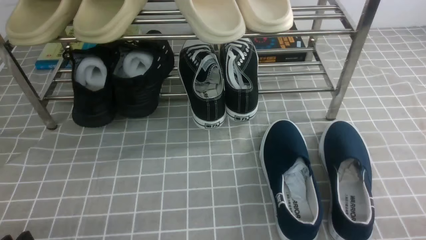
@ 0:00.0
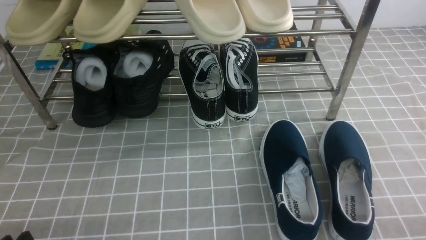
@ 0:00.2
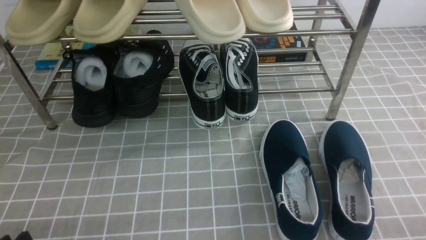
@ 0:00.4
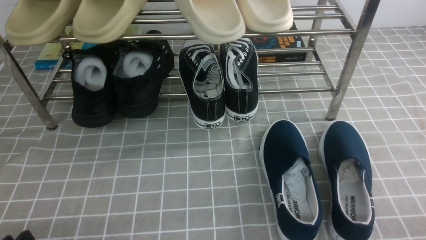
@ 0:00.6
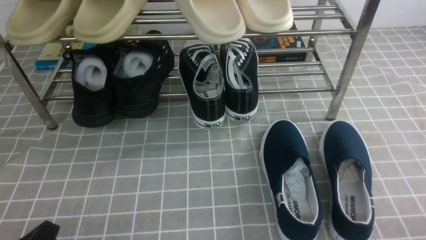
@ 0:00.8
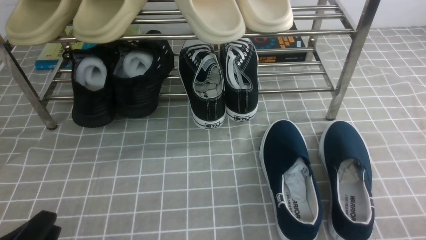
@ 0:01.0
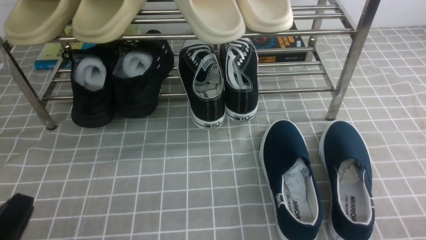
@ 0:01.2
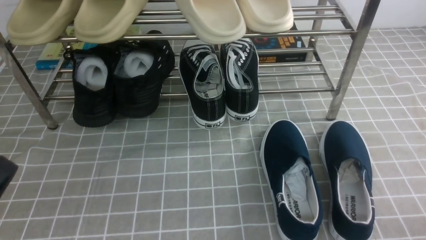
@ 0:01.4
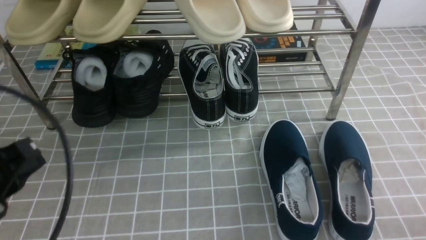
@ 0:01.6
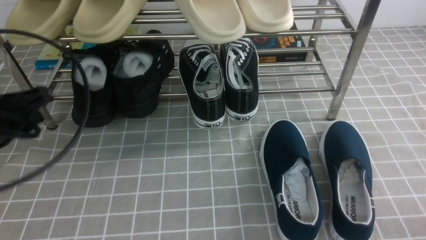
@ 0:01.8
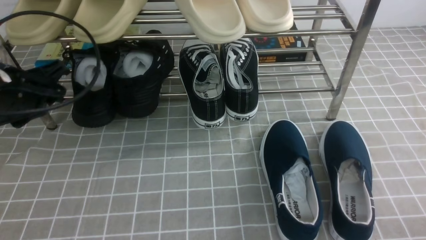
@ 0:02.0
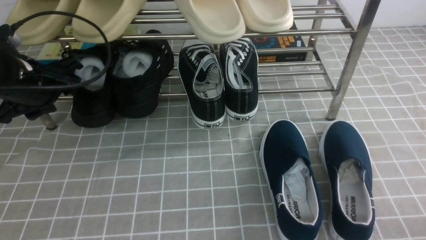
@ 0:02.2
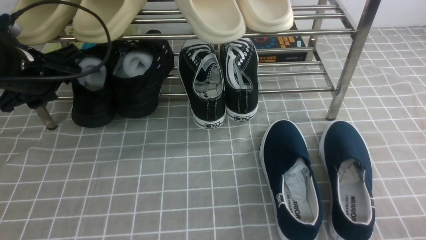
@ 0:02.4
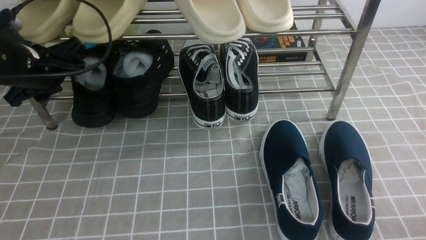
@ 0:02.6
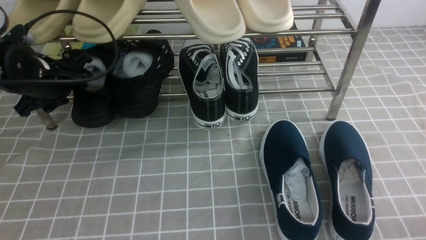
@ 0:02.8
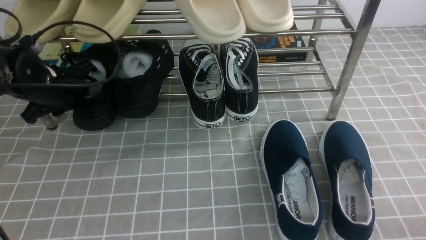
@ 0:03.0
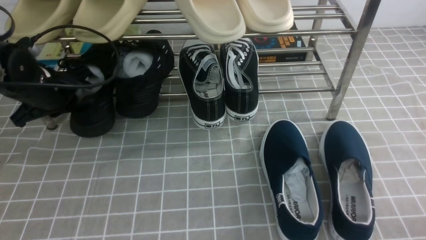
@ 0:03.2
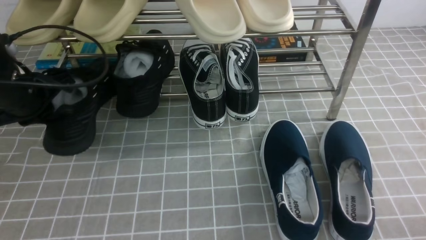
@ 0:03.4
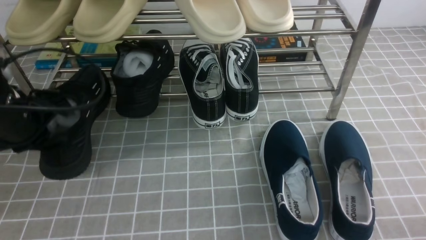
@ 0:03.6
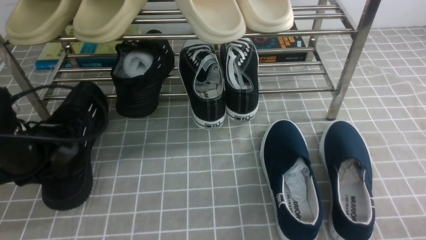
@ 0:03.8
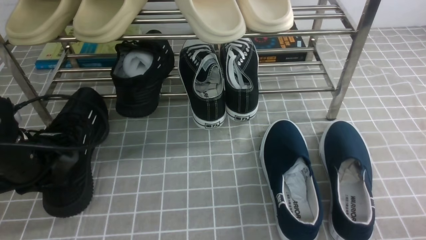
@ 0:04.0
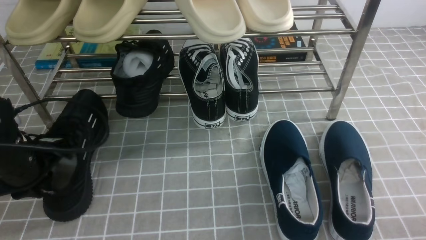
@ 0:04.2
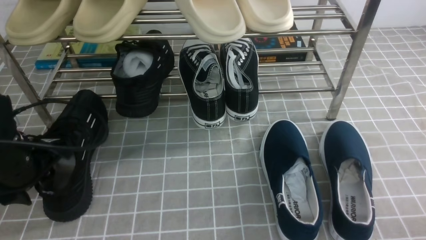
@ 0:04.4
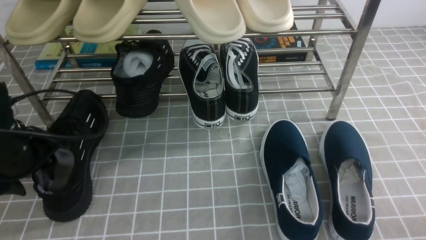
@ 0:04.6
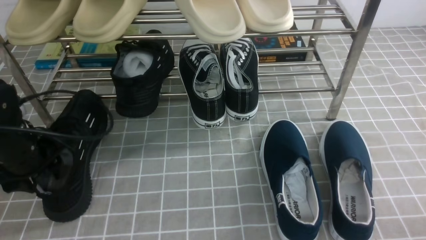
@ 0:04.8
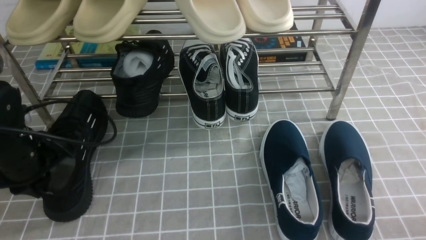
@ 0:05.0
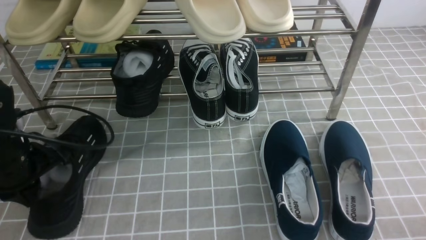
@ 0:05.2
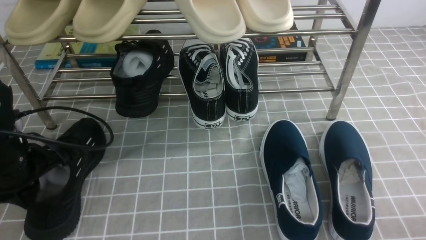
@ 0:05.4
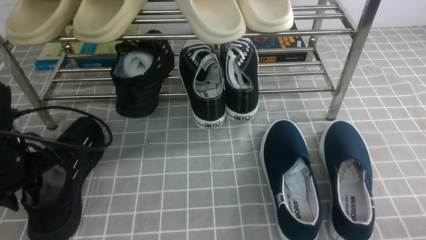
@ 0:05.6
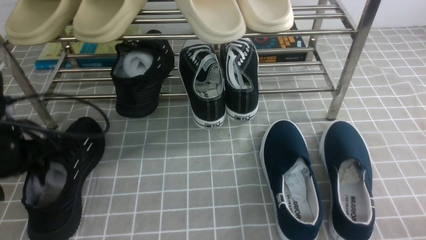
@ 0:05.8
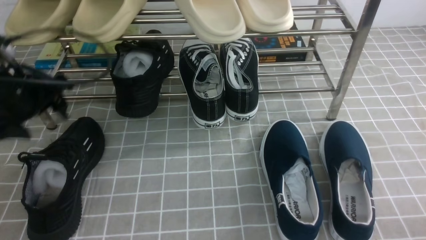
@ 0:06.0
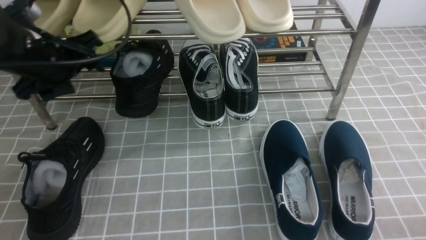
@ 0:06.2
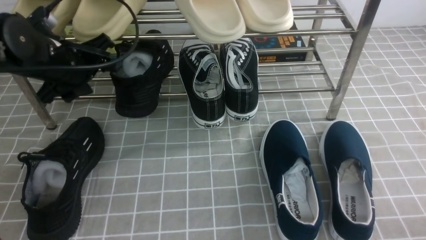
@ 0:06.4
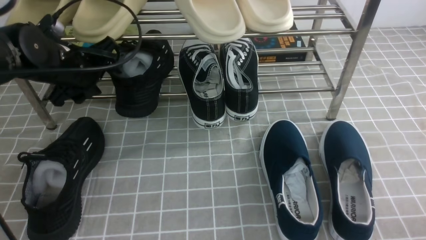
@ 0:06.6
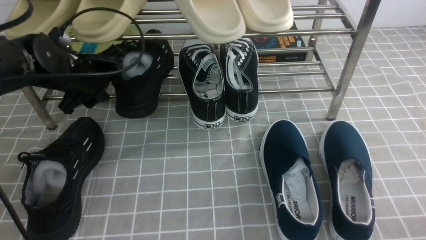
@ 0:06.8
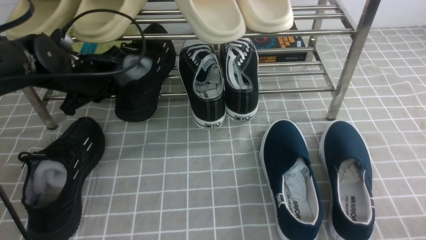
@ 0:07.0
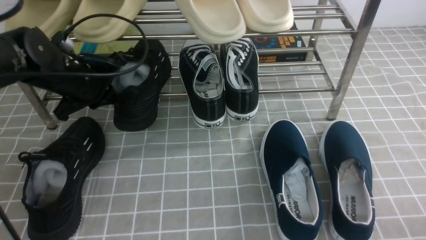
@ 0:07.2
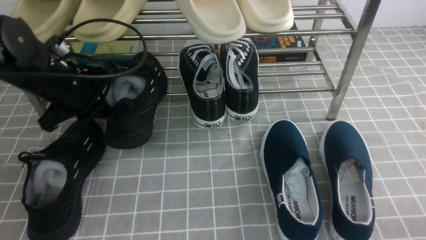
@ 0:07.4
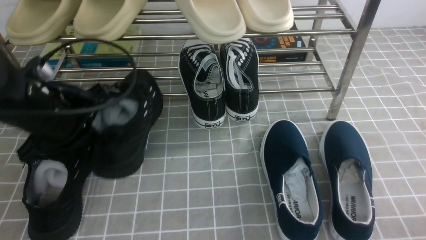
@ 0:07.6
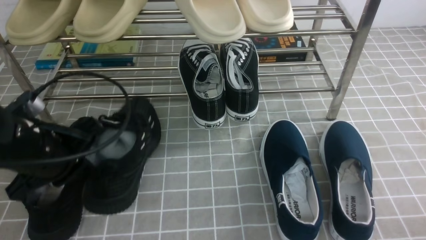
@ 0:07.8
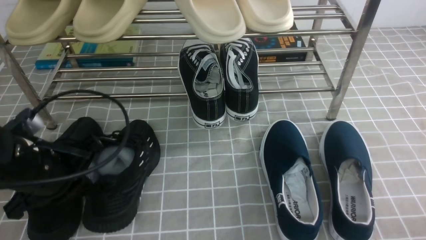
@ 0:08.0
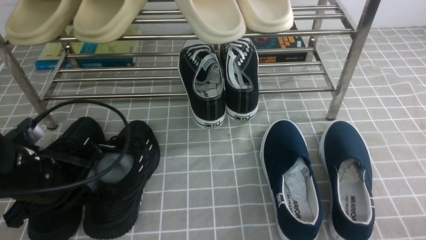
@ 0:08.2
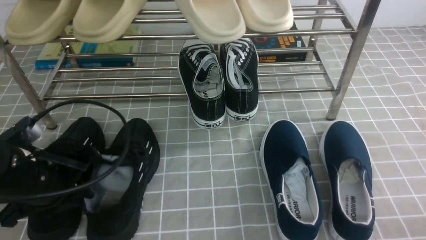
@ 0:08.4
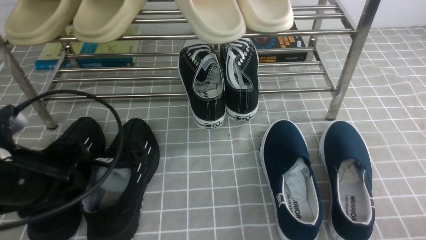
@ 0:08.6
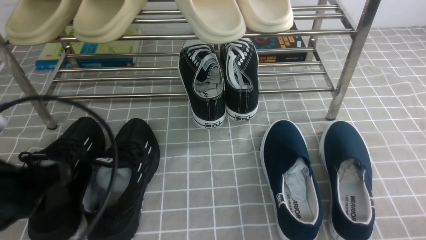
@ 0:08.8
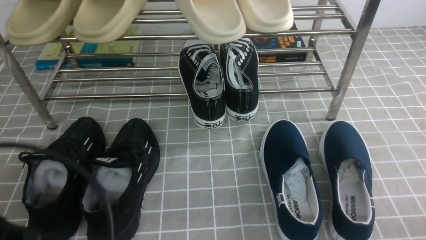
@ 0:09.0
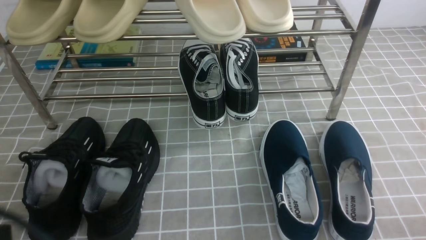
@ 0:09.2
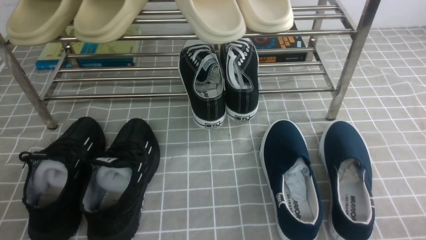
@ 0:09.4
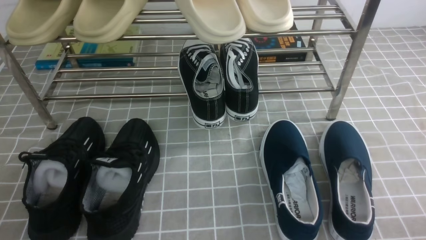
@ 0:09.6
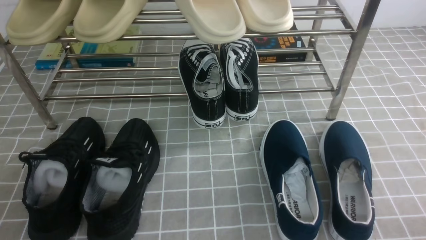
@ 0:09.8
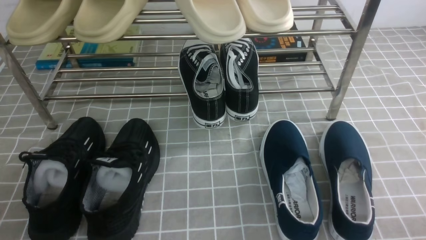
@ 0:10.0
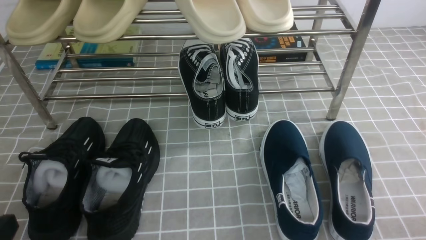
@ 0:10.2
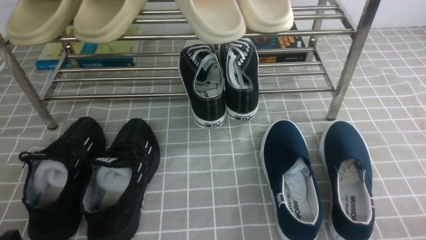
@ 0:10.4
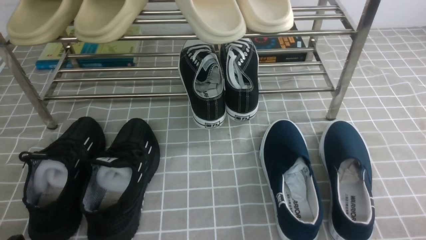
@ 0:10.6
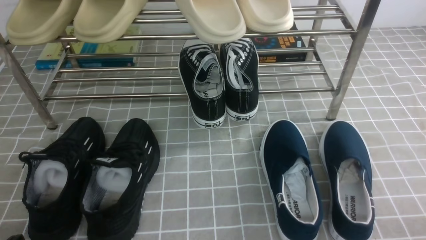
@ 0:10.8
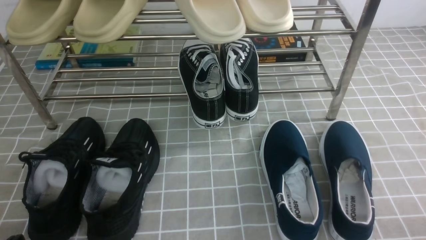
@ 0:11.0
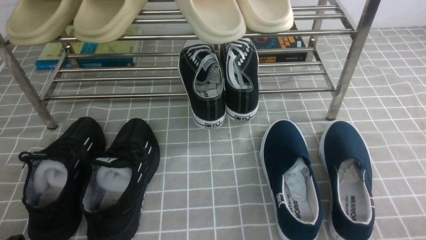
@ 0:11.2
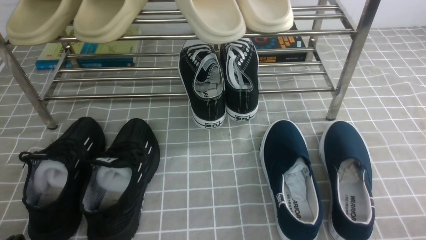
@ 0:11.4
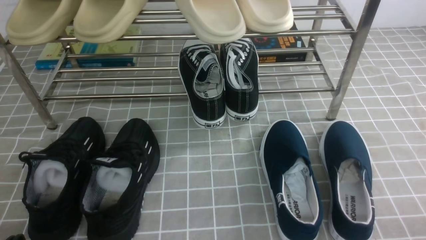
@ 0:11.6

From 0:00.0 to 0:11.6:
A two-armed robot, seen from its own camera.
Step, from 0:00.0 to 0:03.4: use the left arm to clamp a shoe on the left side of the shoe rack.
Step, from 0:03.6 to 0:04.6: Use your left arm to remove the clamped shoe from the shoe rack and put it down.
Step, from 0:04.8 to 0:07.0: use the left arm to clamp a shoe on the left side of the shoe rack.
Step, from 0:07.2 to 0:08.6: Use your left arm to remove the clamped shoe from the shoe rack and put it down.
From 0:01.4 to 0:02.8: The left gripper travels forward by approximately 30 cm, and opens its fingers.
From 0:02.8 to 0:04.4: The left gripper goes approximately 10 cm backward, and closes, then reopens.
From 0:04.4 to 0:05.8: The grippers stay close to where they were, moving slightly.
From 0:05.8 to 0:07.2: The left gripper moves forward and to the right, some 10 cm, and closes its fingers.
From 0:07.2 to 0:08.8: The left gripper heads backward, covering some 20 cm, and opens.
From 0:08.8 to 0:10.2: The left gripper travels backward by some 10 cm, and closes up.
